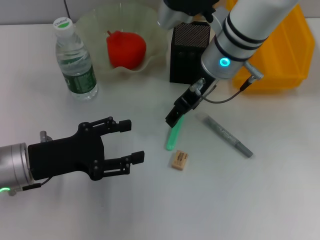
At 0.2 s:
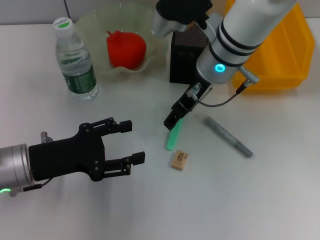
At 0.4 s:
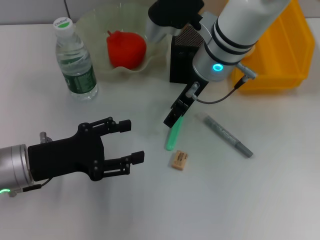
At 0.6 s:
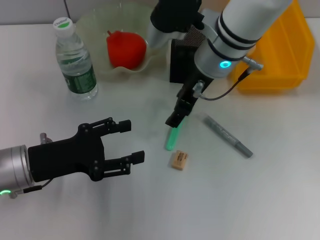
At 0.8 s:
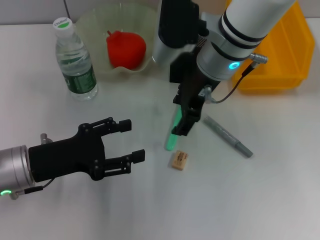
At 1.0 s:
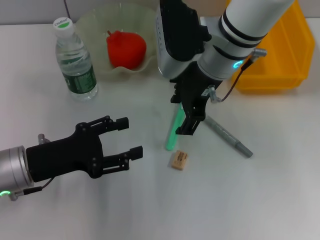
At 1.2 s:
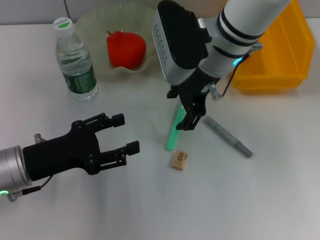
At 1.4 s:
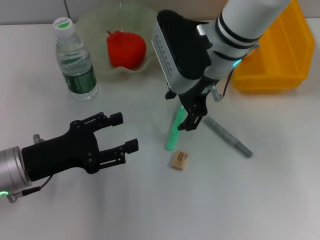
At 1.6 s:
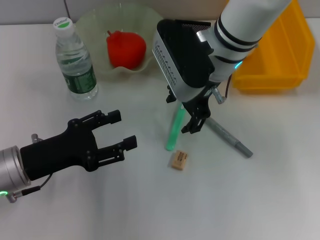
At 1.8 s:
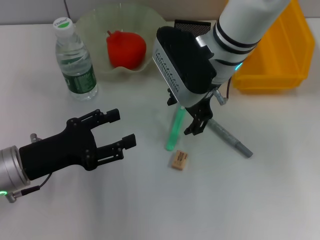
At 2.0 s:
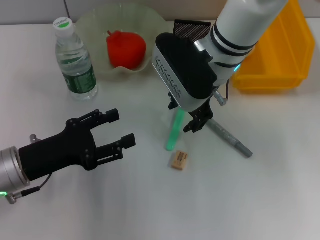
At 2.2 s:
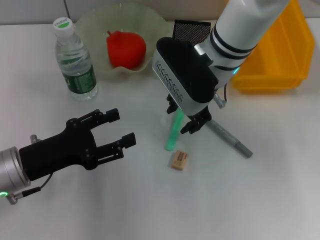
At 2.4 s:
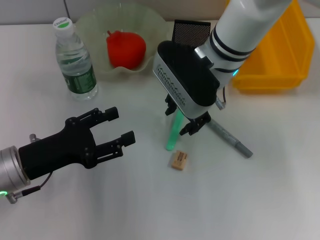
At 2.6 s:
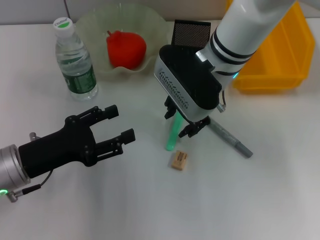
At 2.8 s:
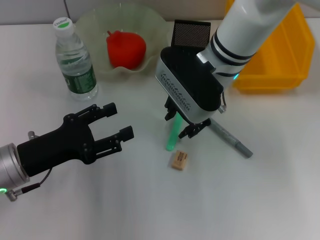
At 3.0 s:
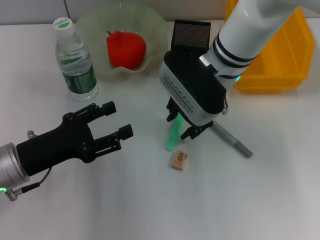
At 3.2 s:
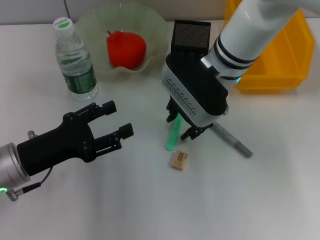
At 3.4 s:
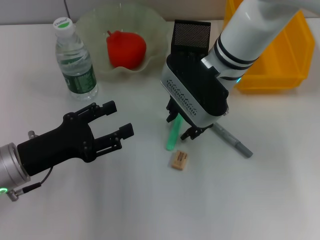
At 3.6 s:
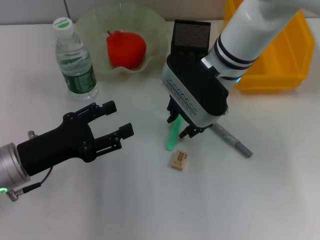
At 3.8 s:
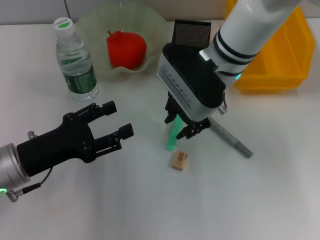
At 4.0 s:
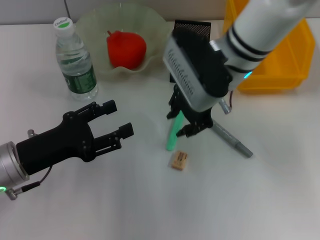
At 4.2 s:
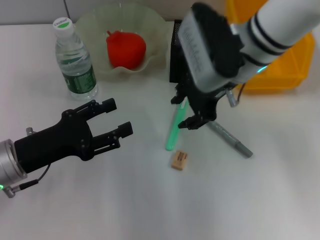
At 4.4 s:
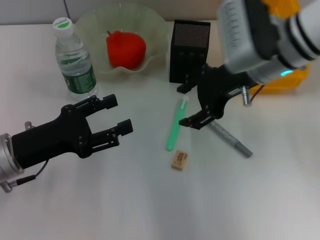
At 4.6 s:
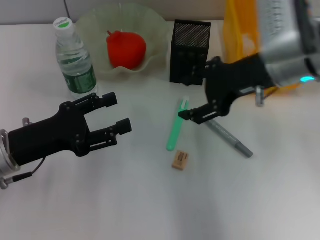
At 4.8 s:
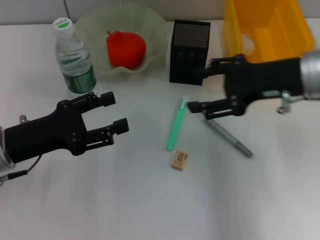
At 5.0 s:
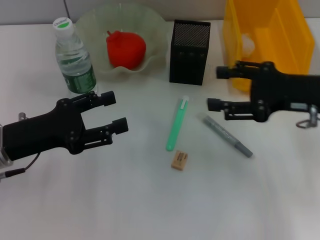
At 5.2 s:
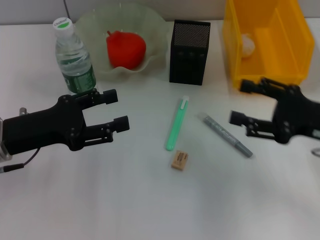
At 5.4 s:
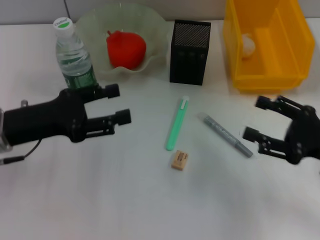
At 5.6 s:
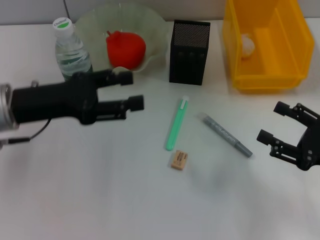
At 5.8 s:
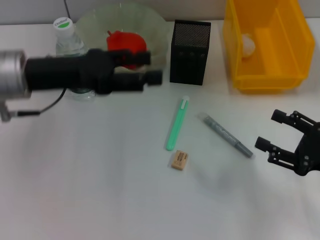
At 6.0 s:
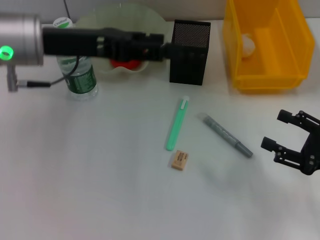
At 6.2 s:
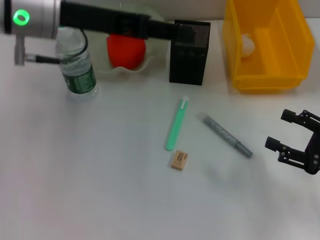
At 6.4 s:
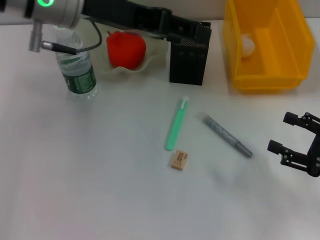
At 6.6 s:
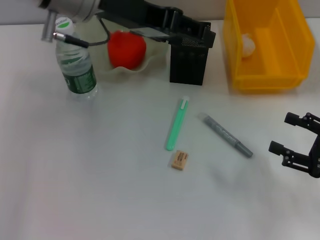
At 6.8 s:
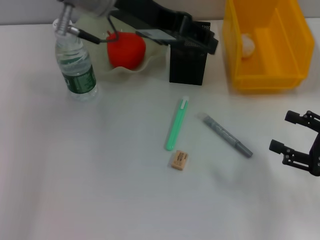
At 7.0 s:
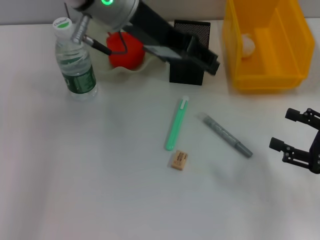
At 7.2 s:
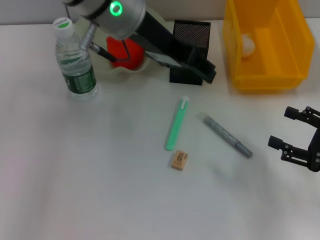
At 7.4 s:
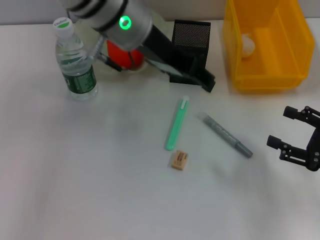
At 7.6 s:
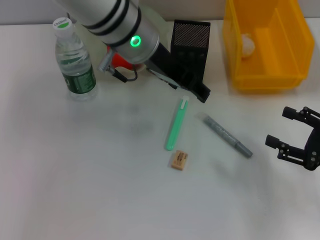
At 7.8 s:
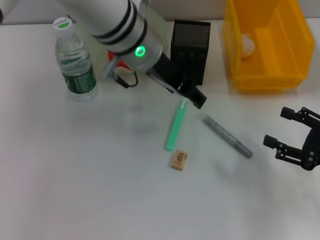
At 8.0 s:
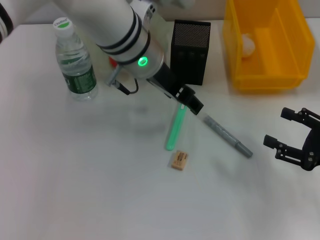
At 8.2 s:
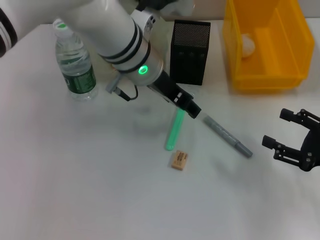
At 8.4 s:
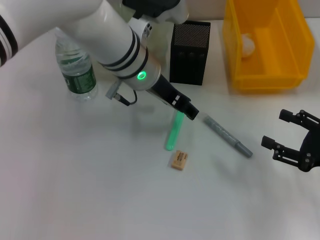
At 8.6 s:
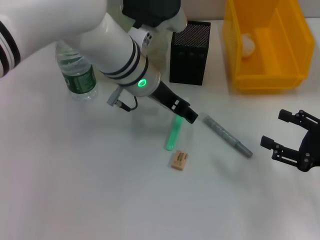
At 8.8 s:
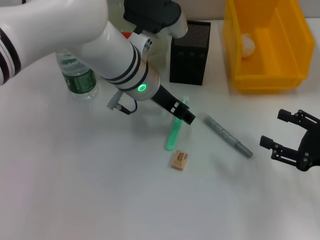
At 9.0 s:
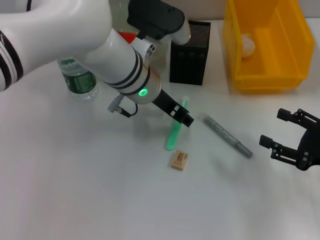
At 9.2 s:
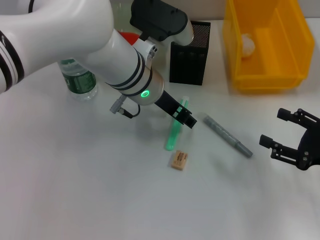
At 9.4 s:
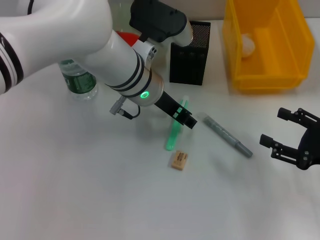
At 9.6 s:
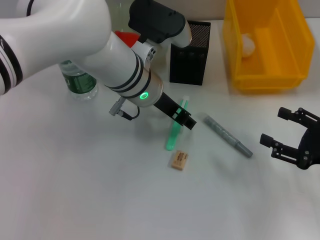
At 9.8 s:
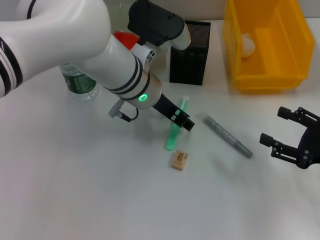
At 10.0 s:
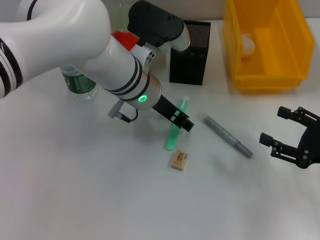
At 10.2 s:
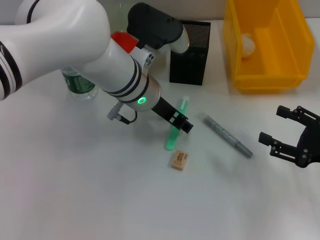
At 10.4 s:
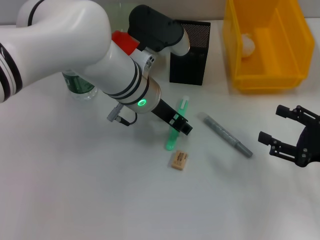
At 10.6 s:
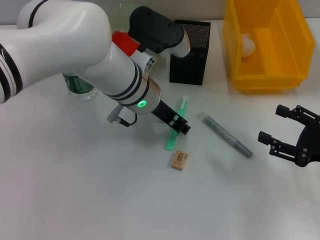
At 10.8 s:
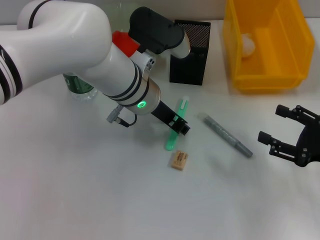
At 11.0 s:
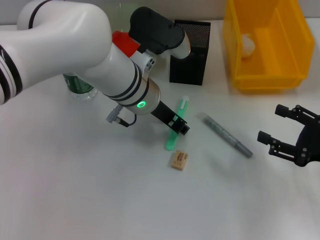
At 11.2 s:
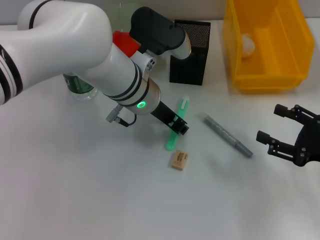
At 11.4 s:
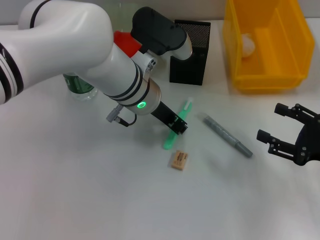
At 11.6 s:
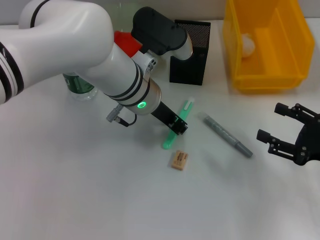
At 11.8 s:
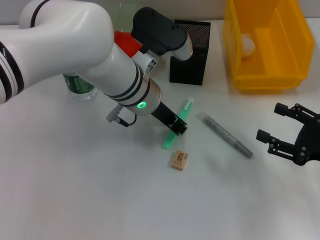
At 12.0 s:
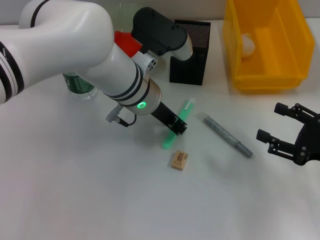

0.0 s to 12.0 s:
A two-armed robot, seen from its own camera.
1.6 to 3.0 s: The grippers make only small movements.
3.0 to 4.4 s: The right gripper travels to the right by about 10 cm.
4.4 to 6.0 s: The right gripper moves to the right, backward and downward, roughly 25 cm. Meanwhile the left gripper goes roughly 15 cm upward, forward and to the right.
6.0 to 7.6 s: The left gripper is displaced to the right by roughly 15 cm.
7.6 to 9.0 s: The left gripper goes some 10 cm downward.
9.0 to 10.4 s: The two grippers keep their place.
10.4 to 12.0 s: The left gripper closes its fingers.

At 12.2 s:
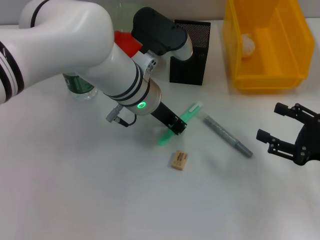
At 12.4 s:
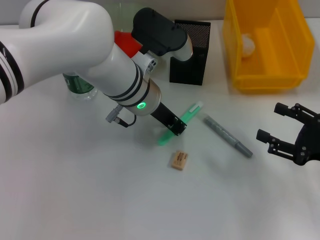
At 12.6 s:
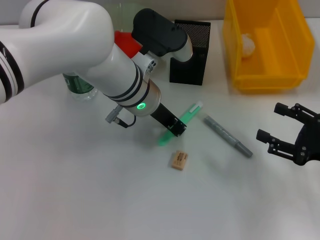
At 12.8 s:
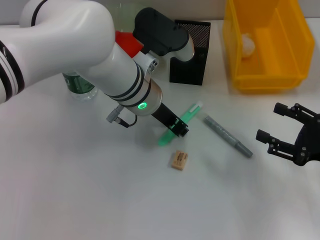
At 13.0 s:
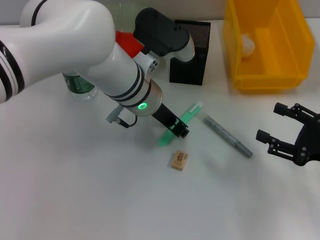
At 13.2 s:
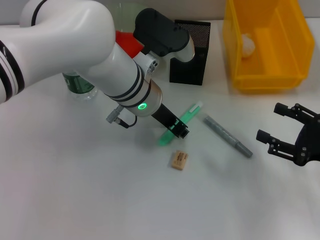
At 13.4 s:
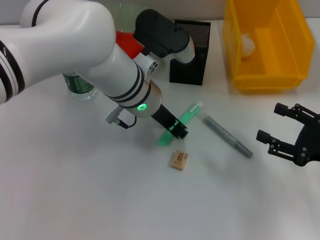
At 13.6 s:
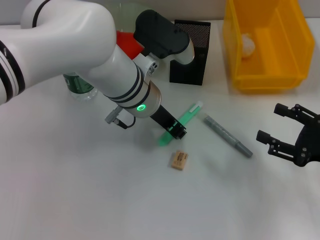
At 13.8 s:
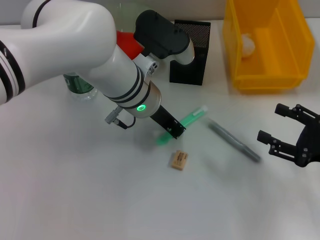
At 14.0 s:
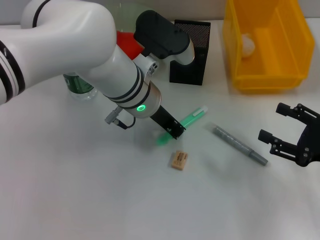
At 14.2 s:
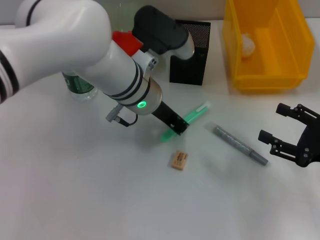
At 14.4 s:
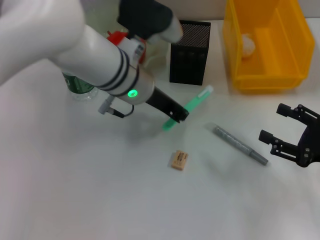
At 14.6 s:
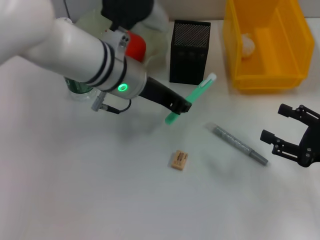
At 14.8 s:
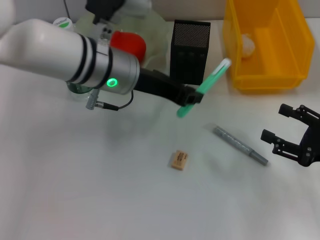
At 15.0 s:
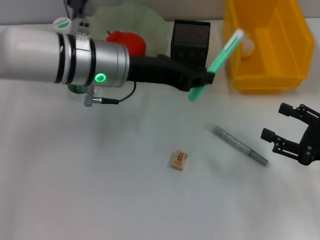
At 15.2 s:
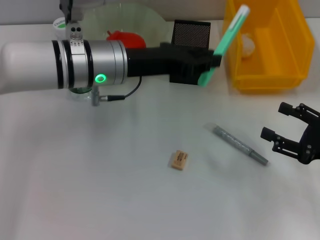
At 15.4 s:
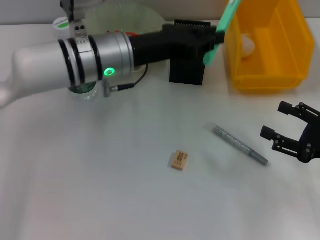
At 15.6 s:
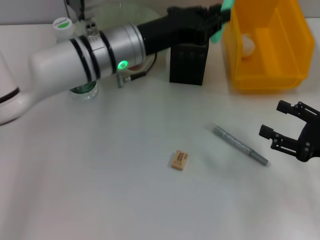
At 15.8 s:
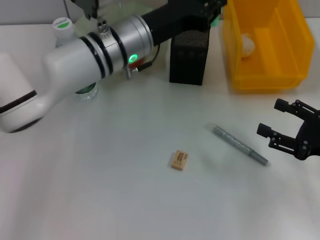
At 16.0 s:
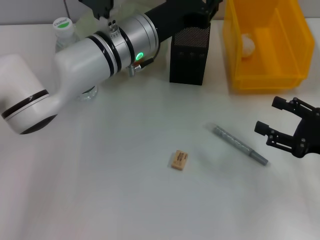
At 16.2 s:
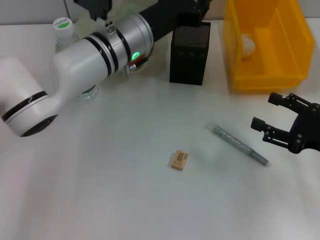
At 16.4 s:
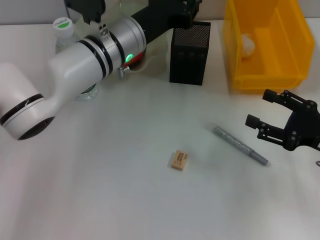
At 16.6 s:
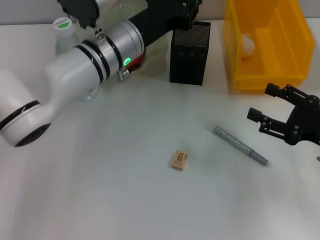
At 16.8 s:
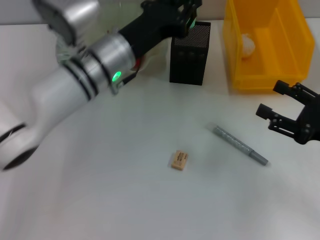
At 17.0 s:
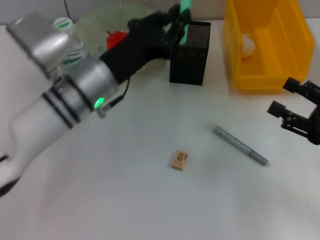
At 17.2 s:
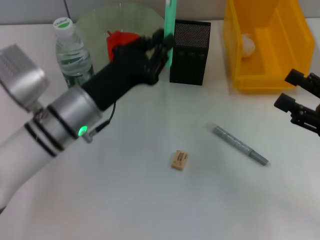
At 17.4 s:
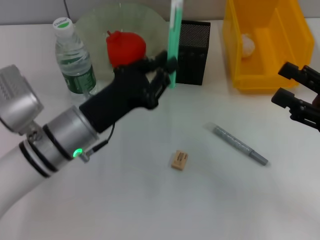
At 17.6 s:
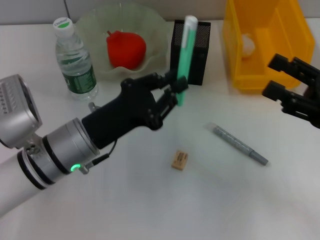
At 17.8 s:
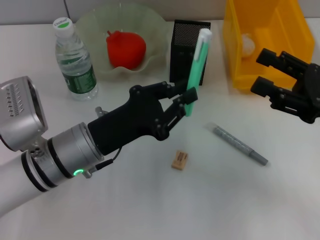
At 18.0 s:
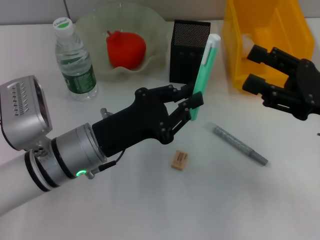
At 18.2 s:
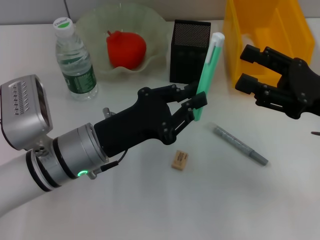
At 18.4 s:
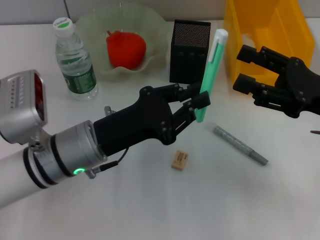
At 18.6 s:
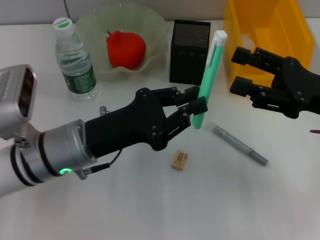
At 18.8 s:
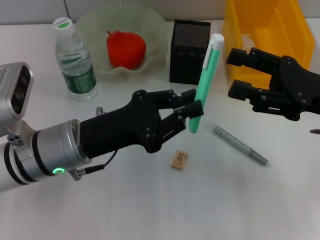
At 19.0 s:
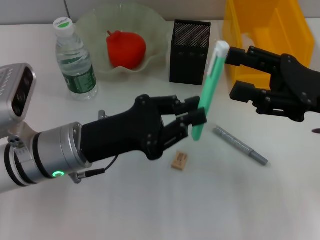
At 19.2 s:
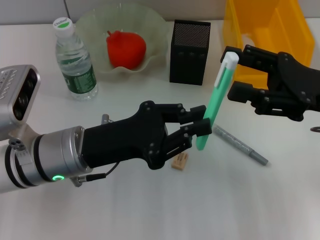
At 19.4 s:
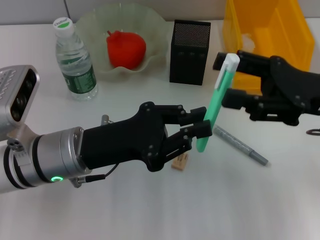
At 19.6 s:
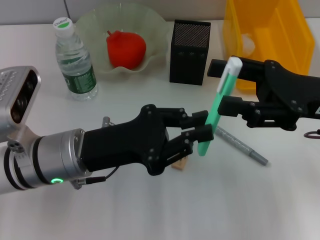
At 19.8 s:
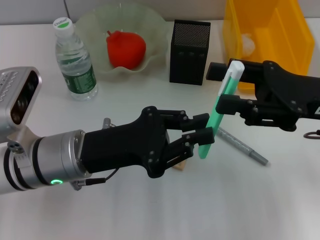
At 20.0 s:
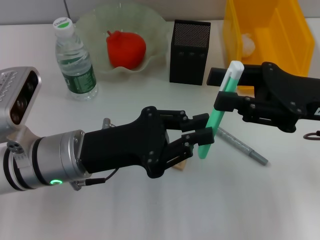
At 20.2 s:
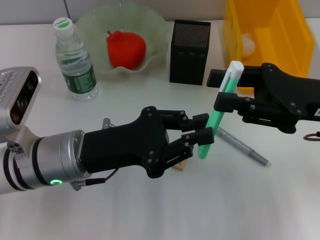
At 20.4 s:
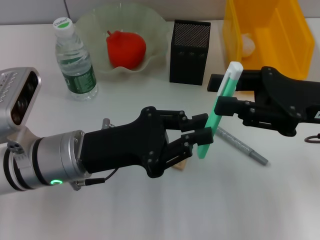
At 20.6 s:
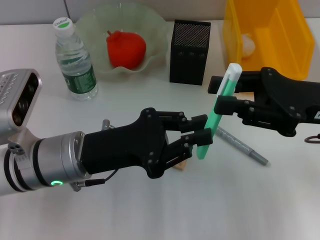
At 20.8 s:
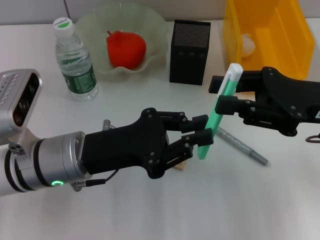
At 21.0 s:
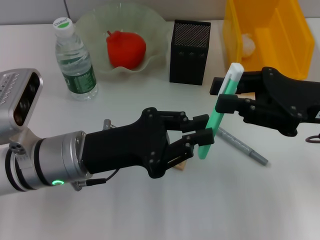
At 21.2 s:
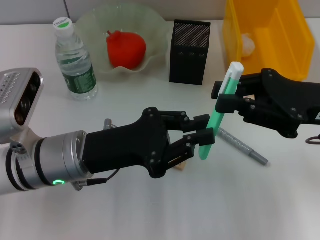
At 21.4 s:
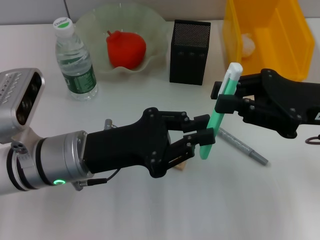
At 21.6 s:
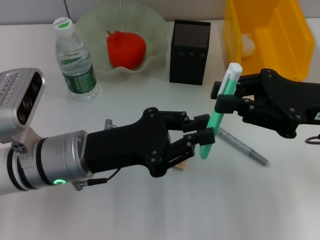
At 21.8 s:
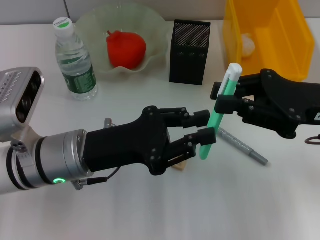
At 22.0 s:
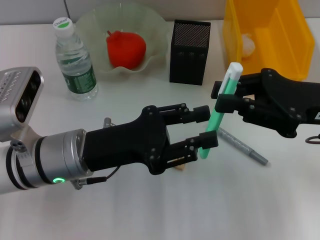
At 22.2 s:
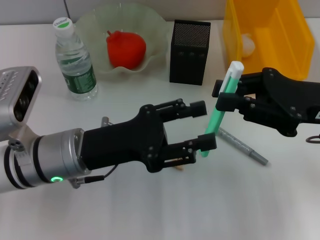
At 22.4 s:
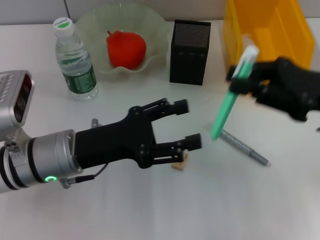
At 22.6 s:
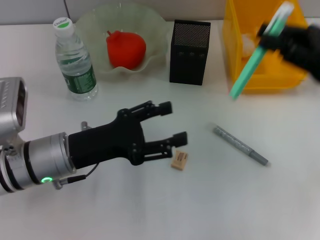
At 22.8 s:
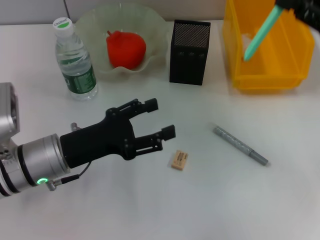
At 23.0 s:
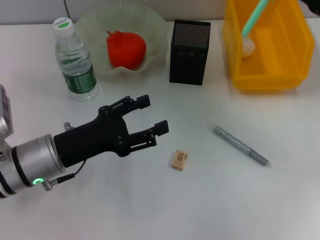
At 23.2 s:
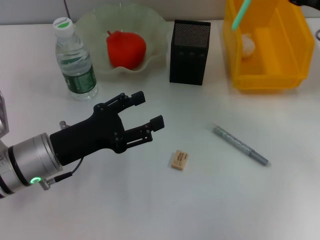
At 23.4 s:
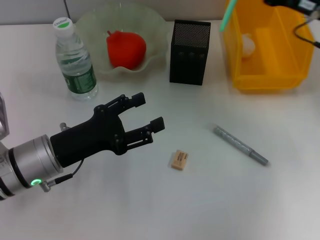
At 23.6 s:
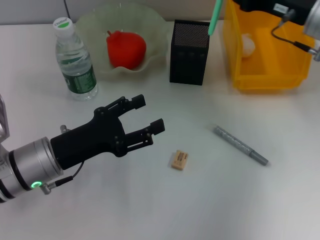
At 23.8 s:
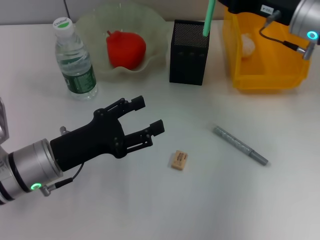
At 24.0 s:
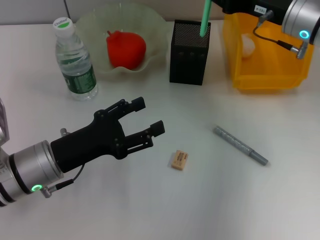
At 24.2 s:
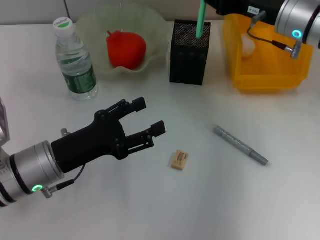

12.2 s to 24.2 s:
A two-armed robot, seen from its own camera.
Step, 14.0 to 22.0 s: Pass the blue utility knife from the left hand to the right hand.
12.2 to 13.8 s: Both grippers stay put.
13.8 to 15.2 s: The left gripper goes about 5 cm to the left.
16.6 to 18.2 s: The right gripper is displaced upward by approximately 5 cm; the left gripper is displaced backward, to the left and downward by roughly 15 cm.
19.8 to 21.2 s: The right gripper closes its fingers.
21.2 to 22.6 s: The left gripper opens its fingers, while the right gripper heads to the right, covering some 5 cm.
22.6 to 24.2 s: The right gripper is displaced forward and to the left by some 15 cm.
